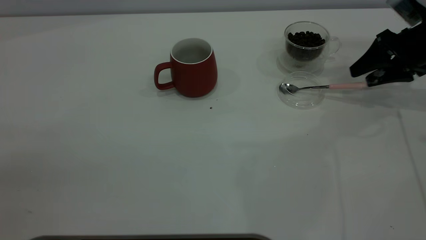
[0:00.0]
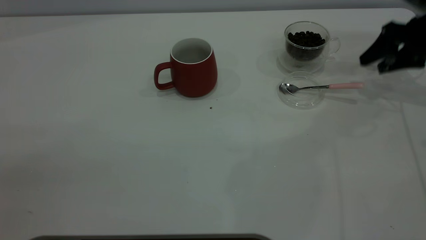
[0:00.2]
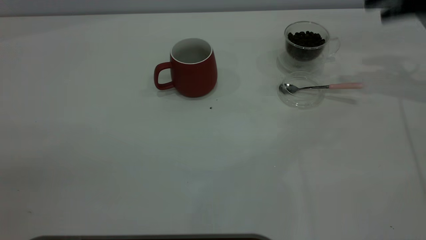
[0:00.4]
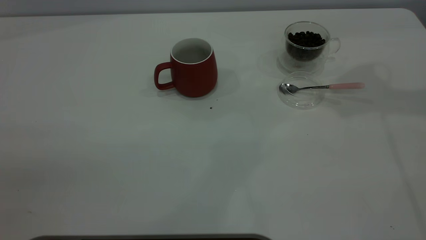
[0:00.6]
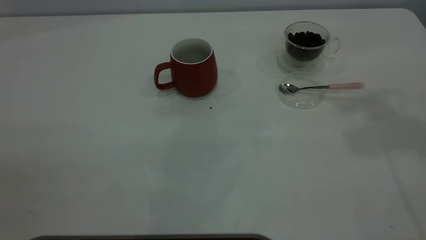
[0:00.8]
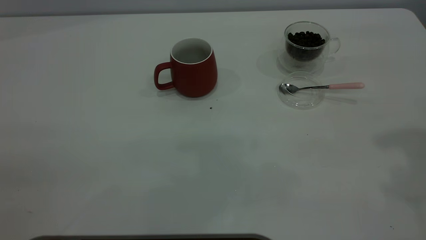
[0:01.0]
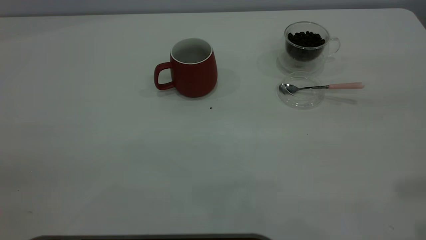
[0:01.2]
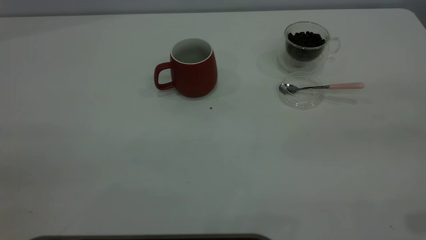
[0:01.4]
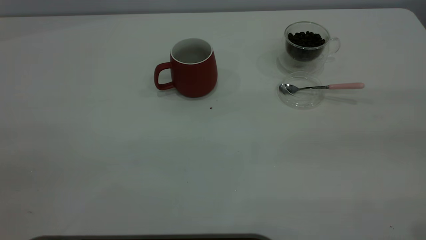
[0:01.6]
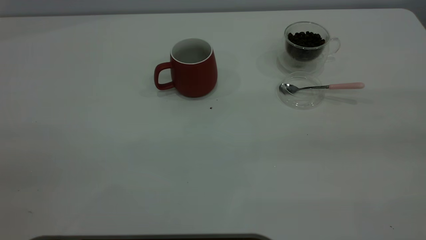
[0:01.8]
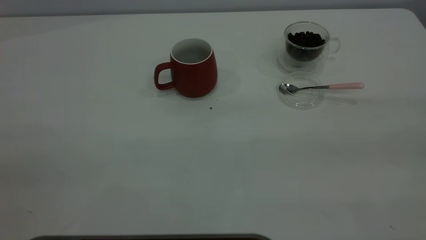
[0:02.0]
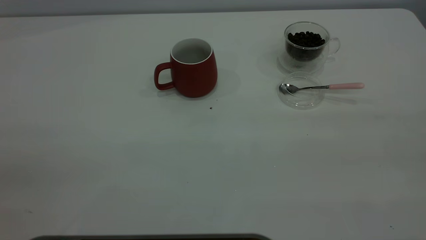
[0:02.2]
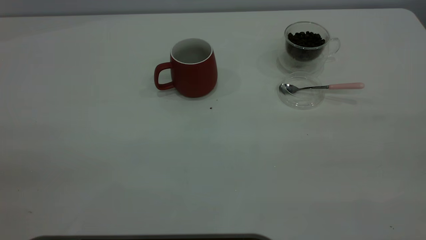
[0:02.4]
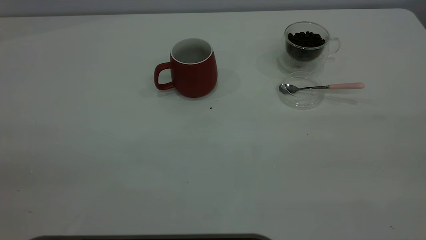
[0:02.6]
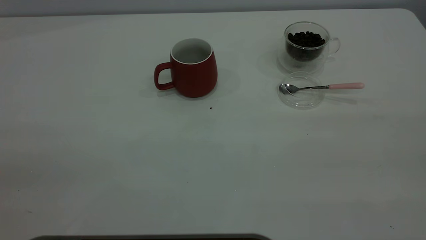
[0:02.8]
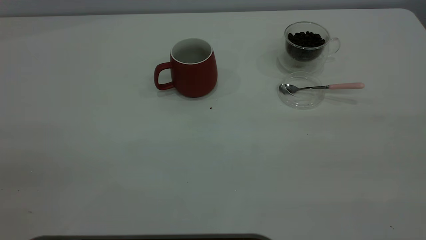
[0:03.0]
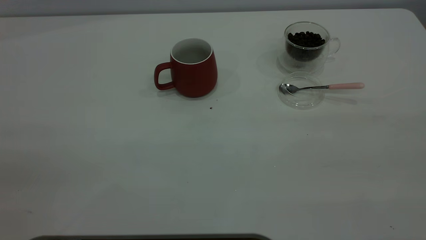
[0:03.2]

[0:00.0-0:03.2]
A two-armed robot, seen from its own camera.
Task of the whole recording: the left gripper place the red cup in the center of the table, the right gripper take the pink spoon from the cup lid and scoop out the coffee beans from the coffee cup and put them into the red cup, the right gripper put the spoon back into the cup lid.
0:00.0 to 0:01.6: The right gripper travels backward and upward by about 40 cm.
